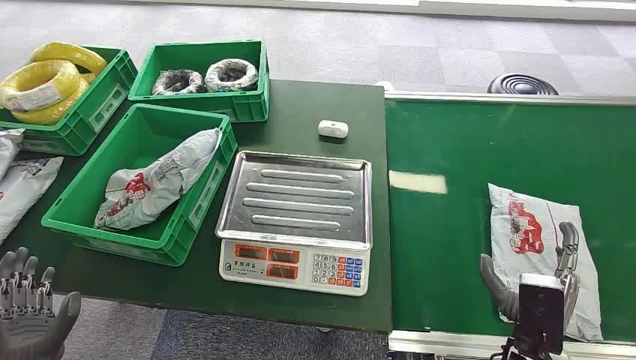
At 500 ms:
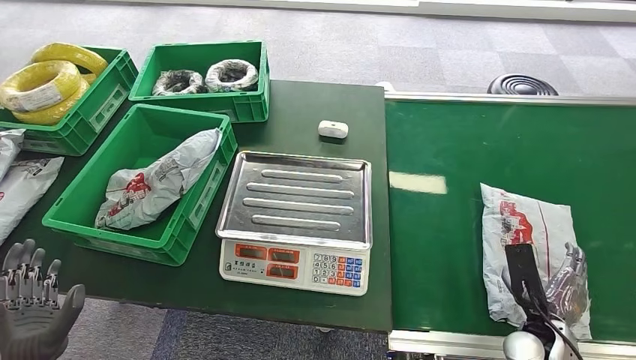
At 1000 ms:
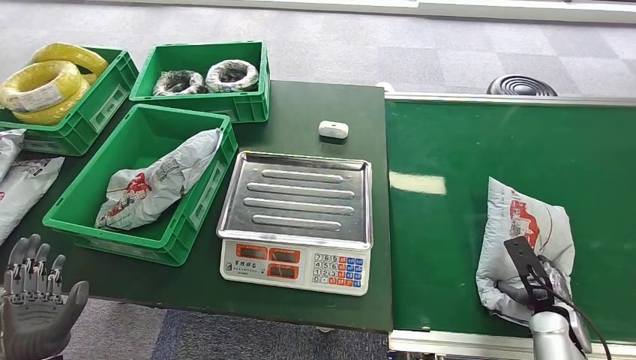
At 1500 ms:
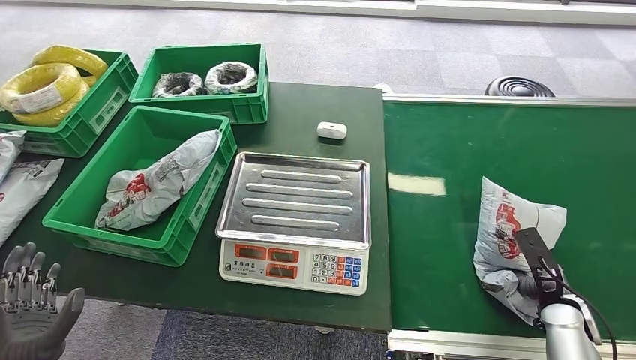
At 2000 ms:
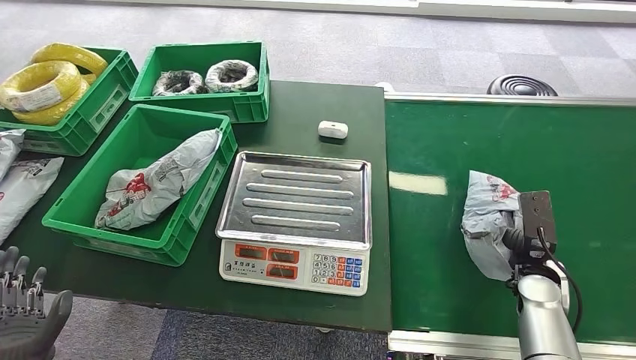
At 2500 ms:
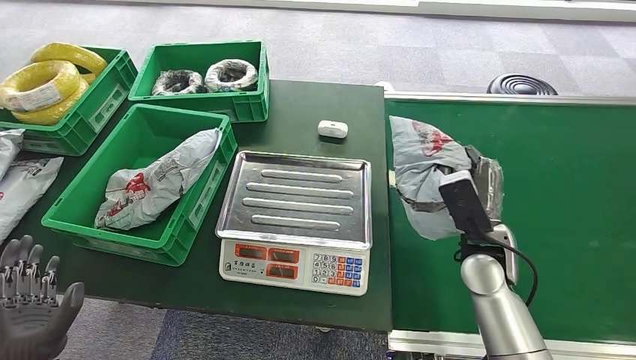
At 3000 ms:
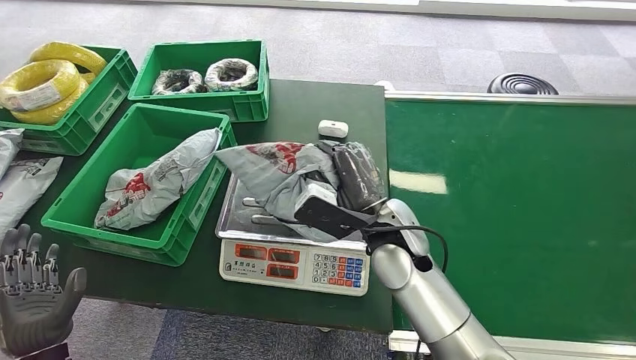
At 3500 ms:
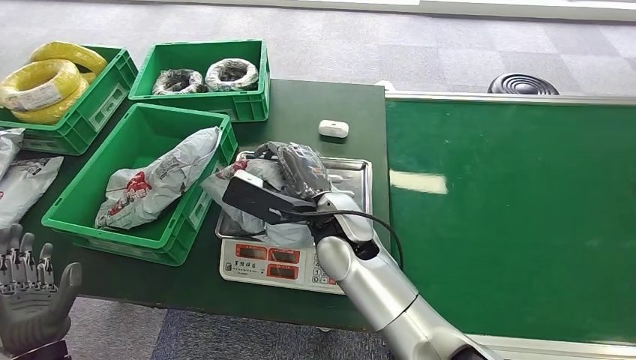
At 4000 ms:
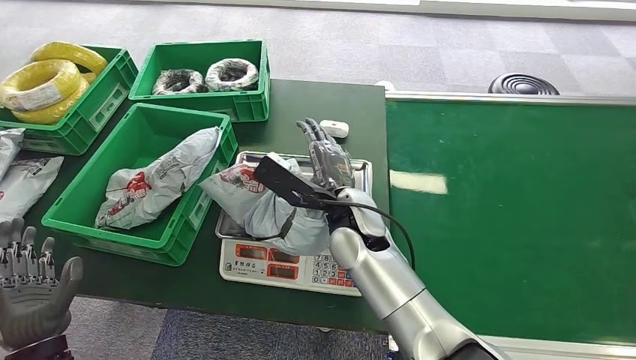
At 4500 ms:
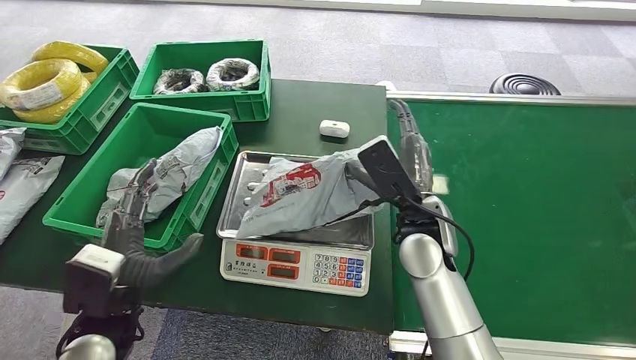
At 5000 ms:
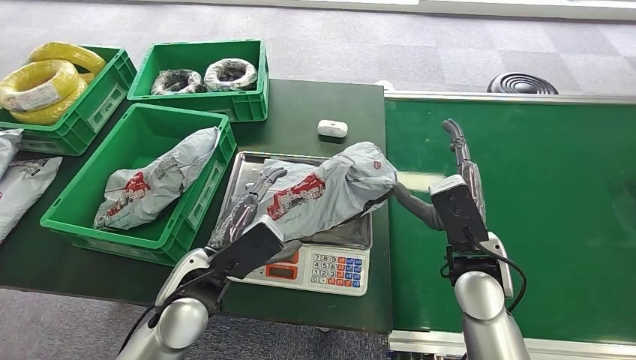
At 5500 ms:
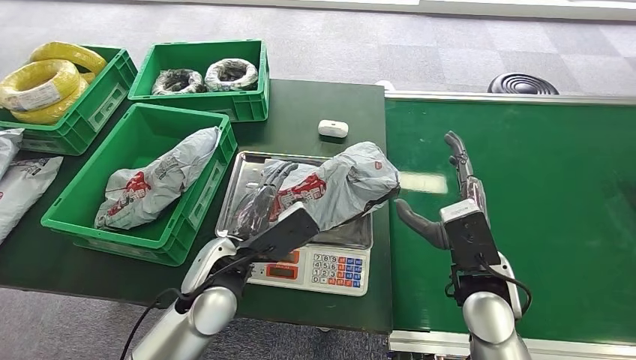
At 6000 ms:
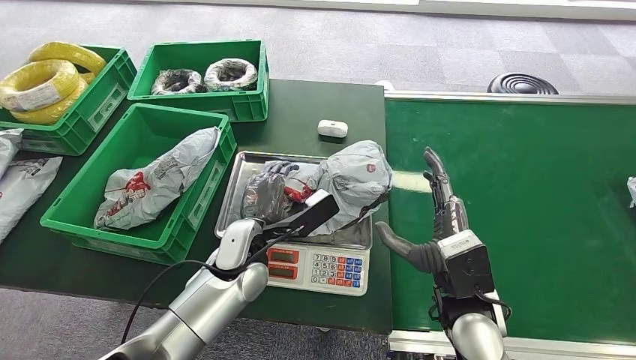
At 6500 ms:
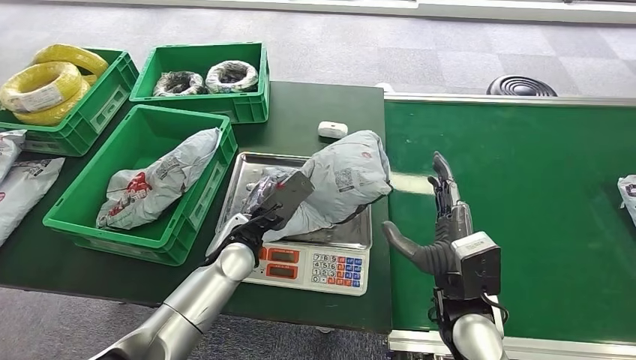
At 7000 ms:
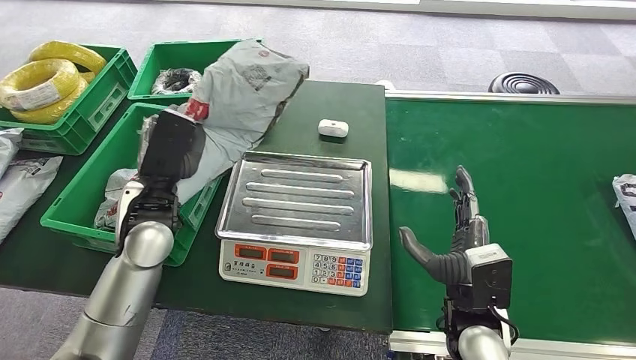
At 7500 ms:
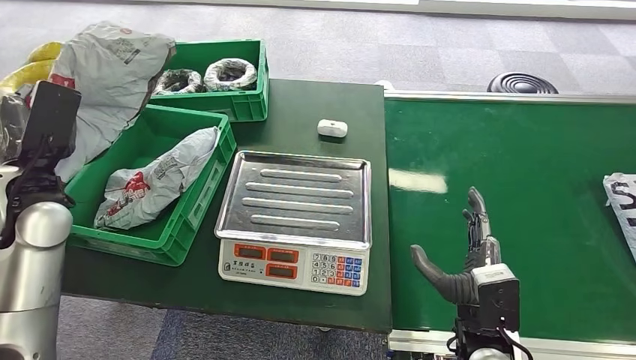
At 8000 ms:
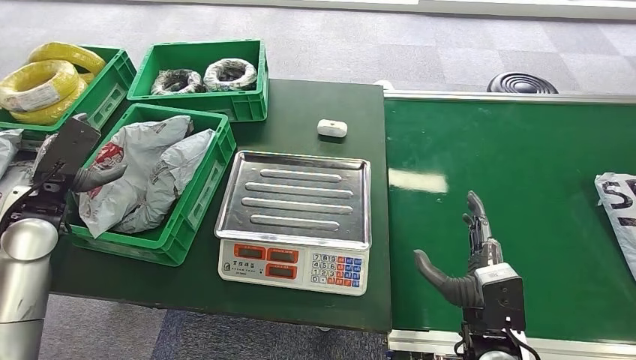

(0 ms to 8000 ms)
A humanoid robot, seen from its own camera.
Step, 0 ms - 2500 ms: Pick up the package from the conveyor belt.
Step, 3000 ms - 5500 ms: Place the package onto the inbound machine.
Step, 6000 ms - 7500 ms: Pick up the package from the inbound machine.
